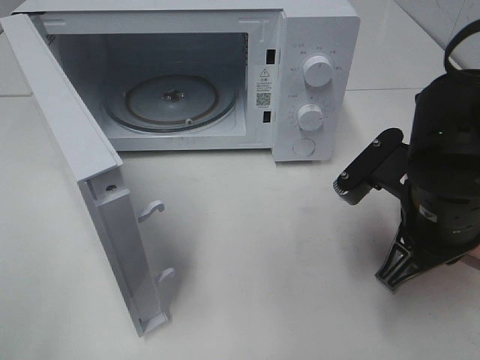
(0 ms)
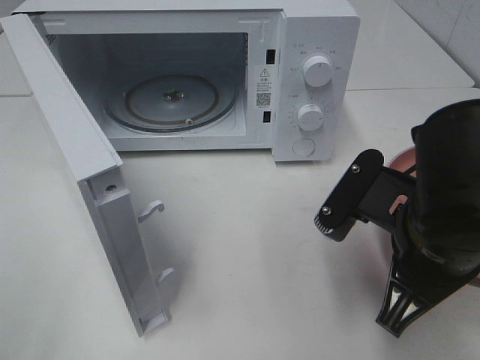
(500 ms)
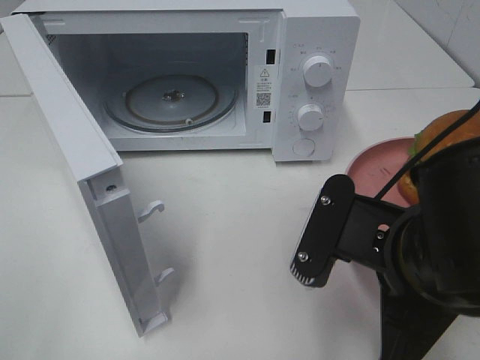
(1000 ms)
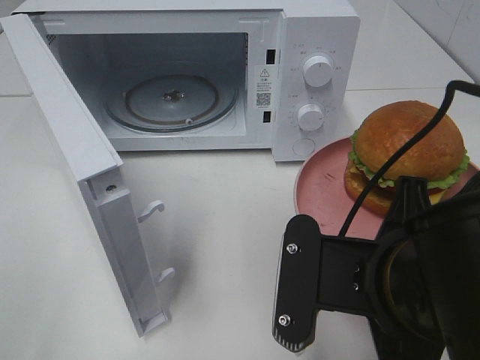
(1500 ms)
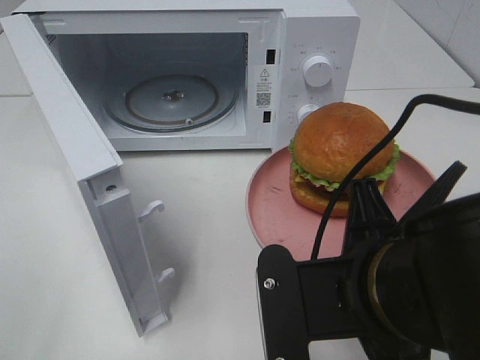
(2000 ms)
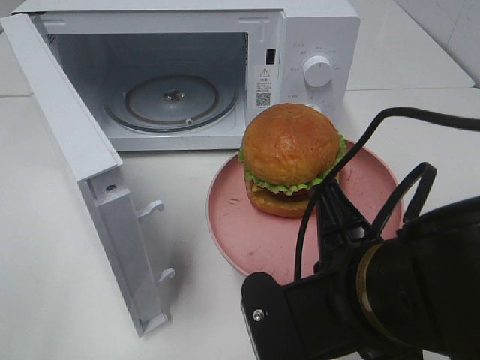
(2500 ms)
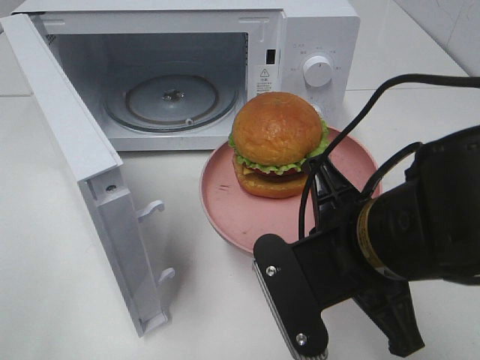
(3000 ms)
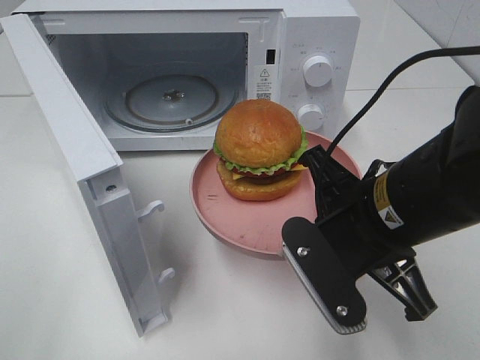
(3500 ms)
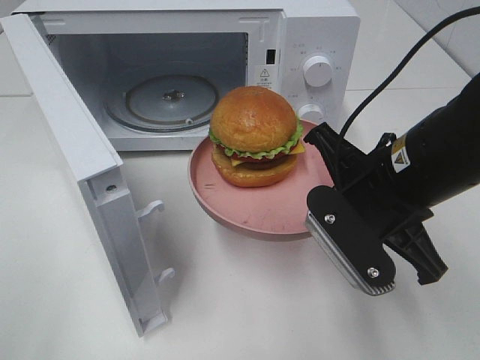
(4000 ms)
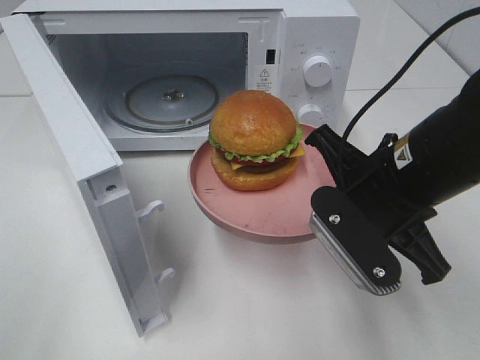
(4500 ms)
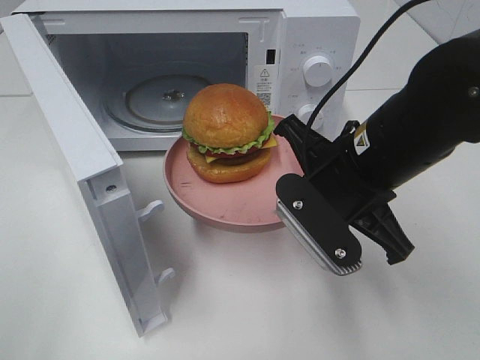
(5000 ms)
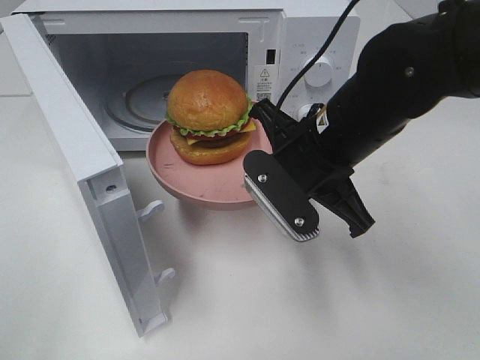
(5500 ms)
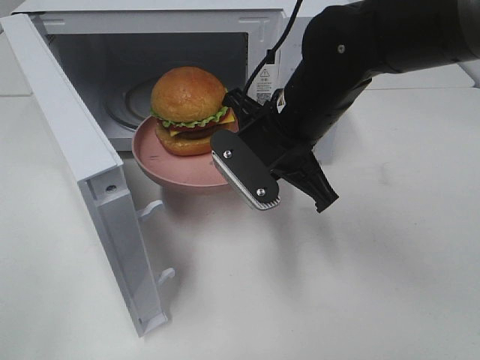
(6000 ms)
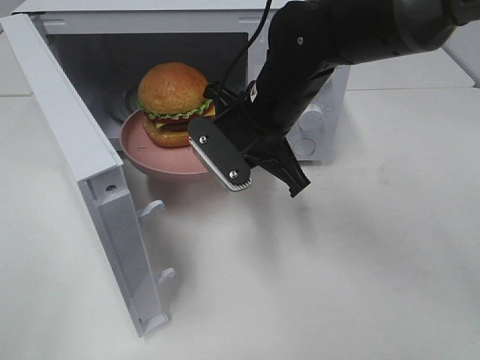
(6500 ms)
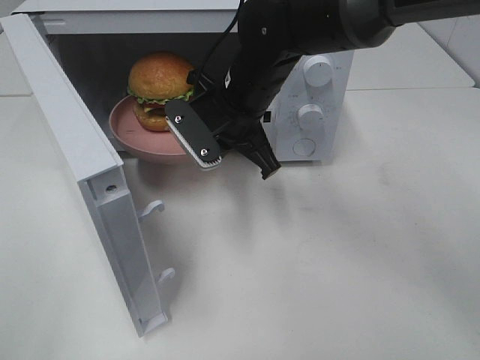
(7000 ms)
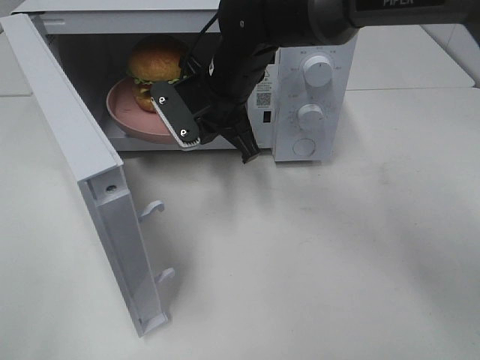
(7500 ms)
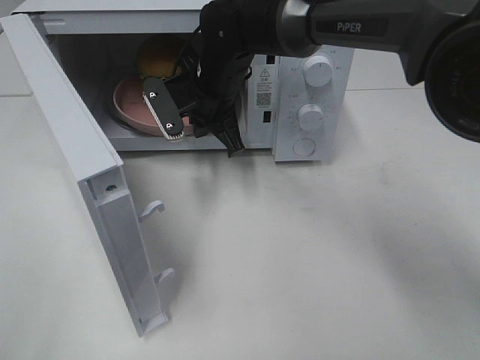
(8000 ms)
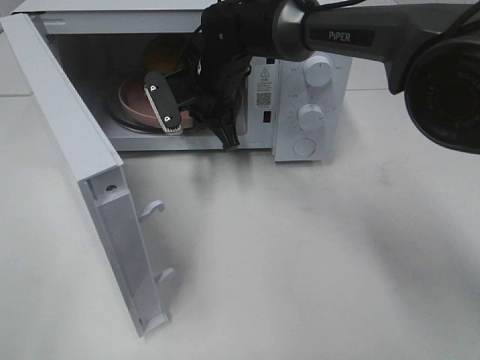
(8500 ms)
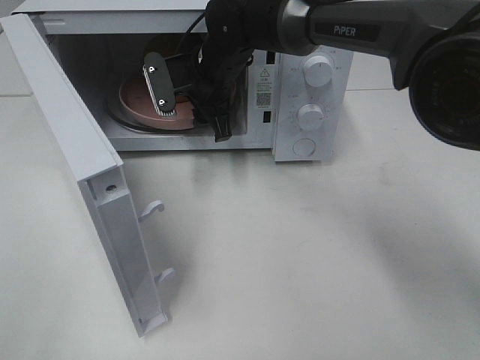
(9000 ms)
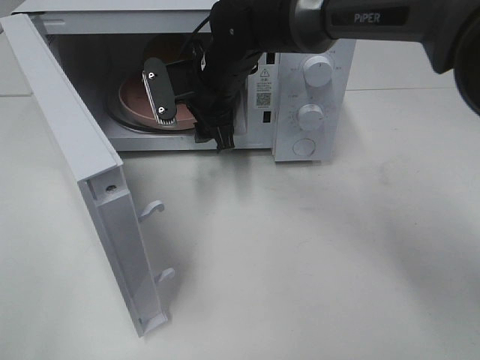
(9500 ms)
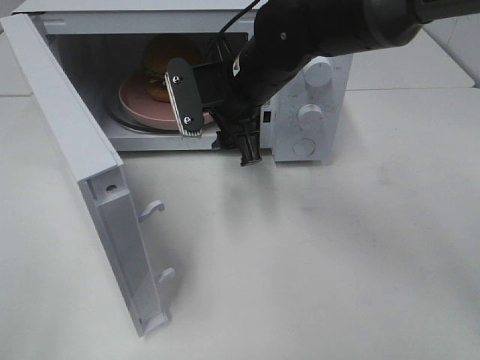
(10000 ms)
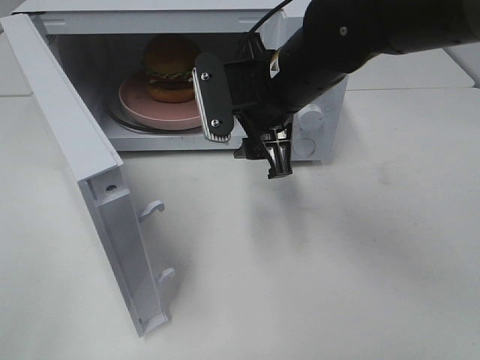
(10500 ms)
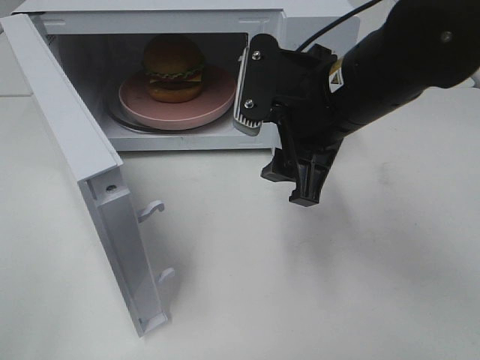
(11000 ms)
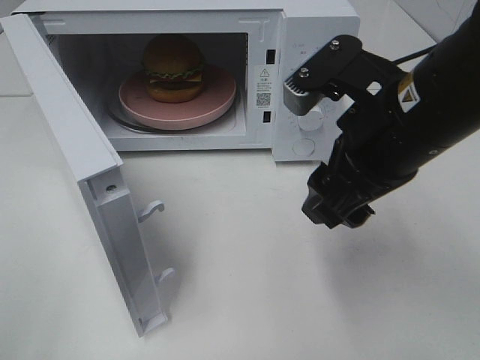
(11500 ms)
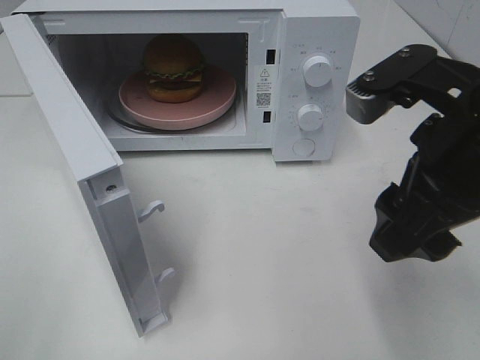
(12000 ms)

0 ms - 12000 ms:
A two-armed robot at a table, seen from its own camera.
Task of the whole recording: Heat the burger.
Step, 0 ms - 9000 ms: Right hand: place the plate in the microwave.
0 ms - 2000 ms: The right gripper heads backward and to the left, covering approximately 10 cm.
2000 ms - 4000 ms: The right gripper moves forward, about 10 cm.
4000 ms - 6000 ms: The right gripper travels forward and to the left by some 10 cm.
6000 ms - 8000 ms: The right gripper travels forward and to the left by about 15 cm.
8000 ms - 10000 ms: The right gripper heads backward, covering approximately 5 cm, and opens up.
10000 ms - 12000 ms: The right gripper travels backward and to the right by roughly 25 cm.

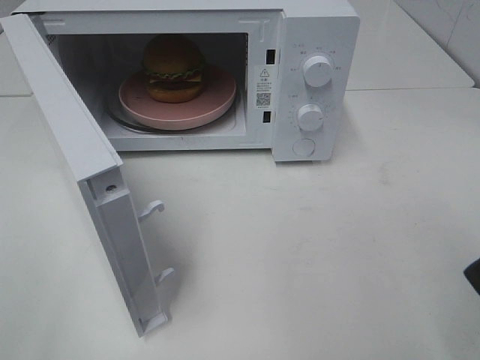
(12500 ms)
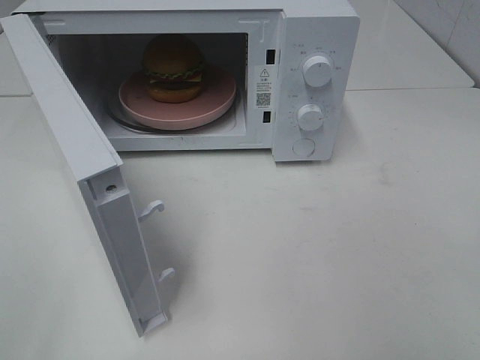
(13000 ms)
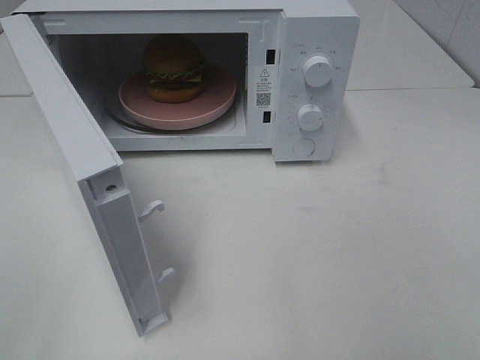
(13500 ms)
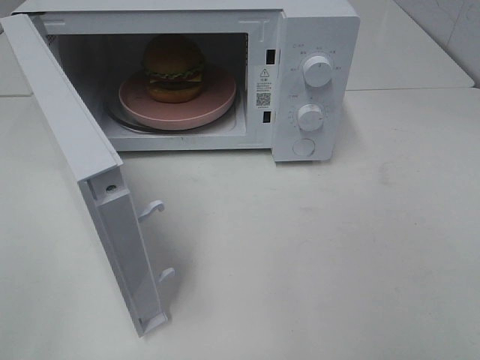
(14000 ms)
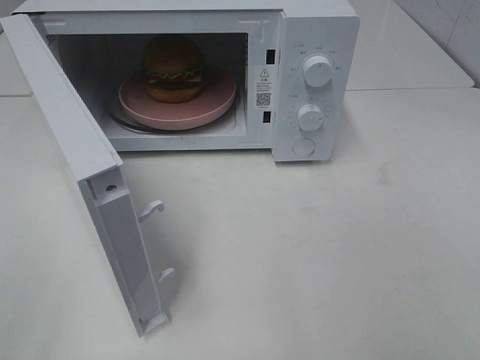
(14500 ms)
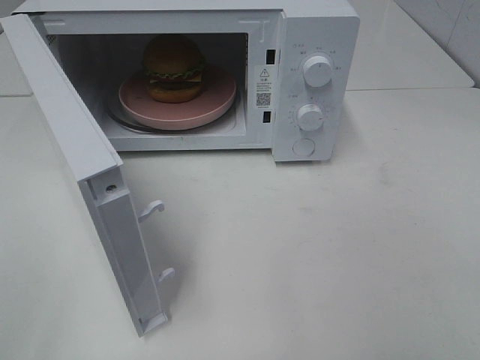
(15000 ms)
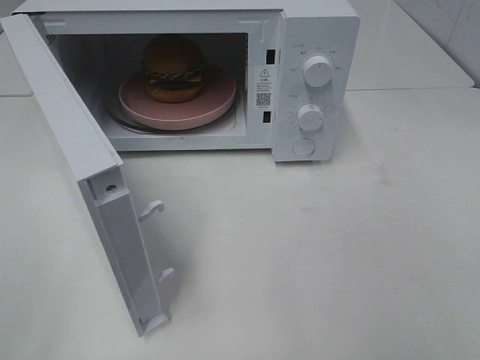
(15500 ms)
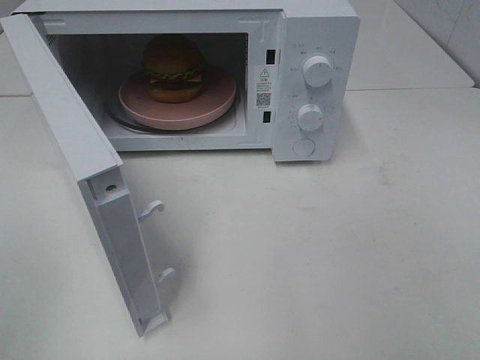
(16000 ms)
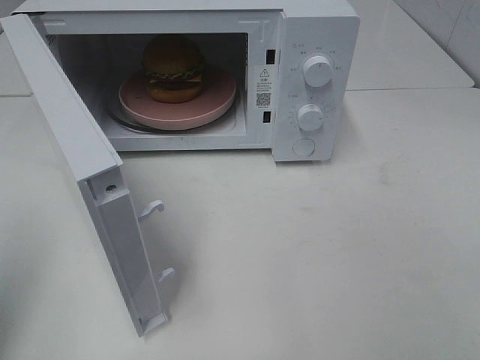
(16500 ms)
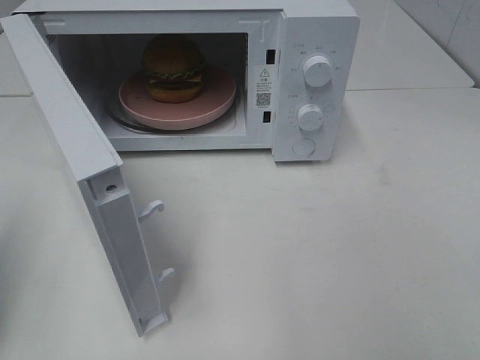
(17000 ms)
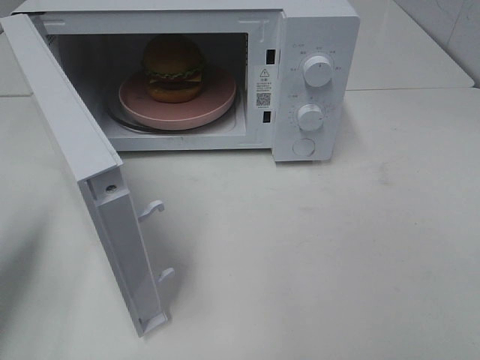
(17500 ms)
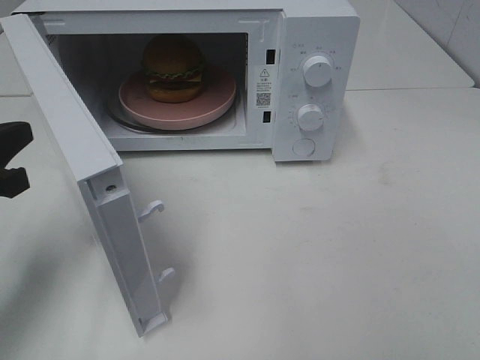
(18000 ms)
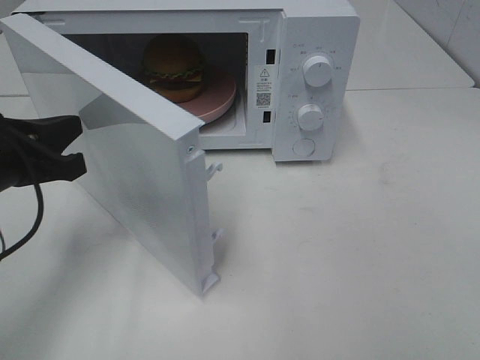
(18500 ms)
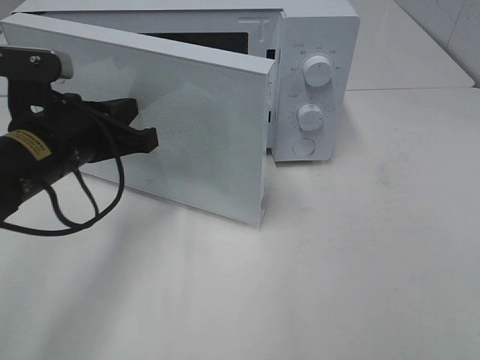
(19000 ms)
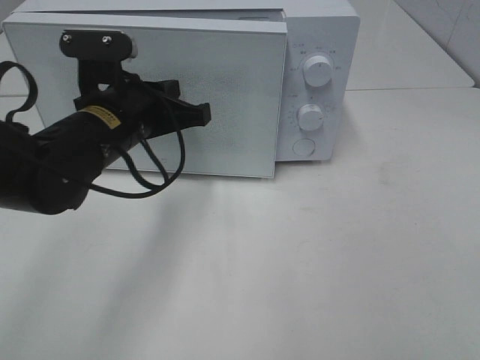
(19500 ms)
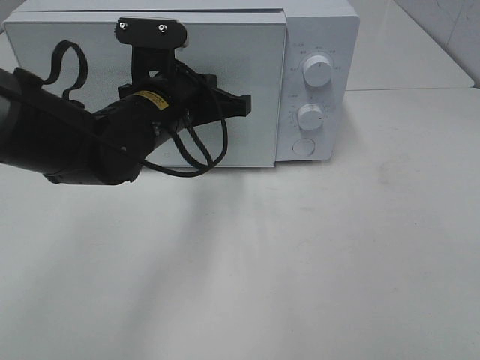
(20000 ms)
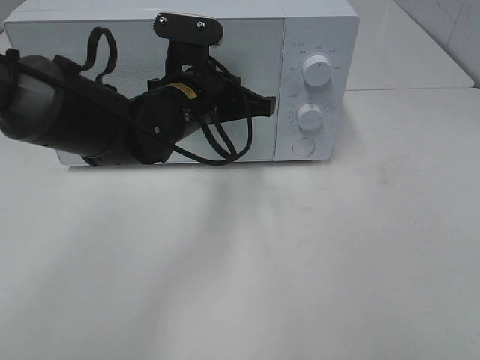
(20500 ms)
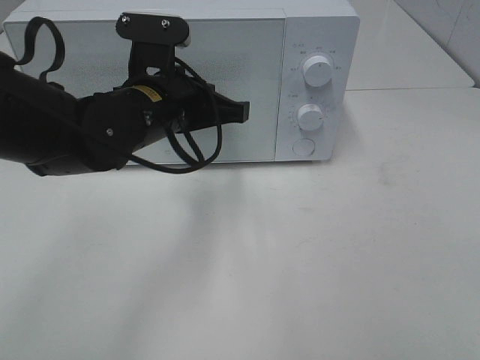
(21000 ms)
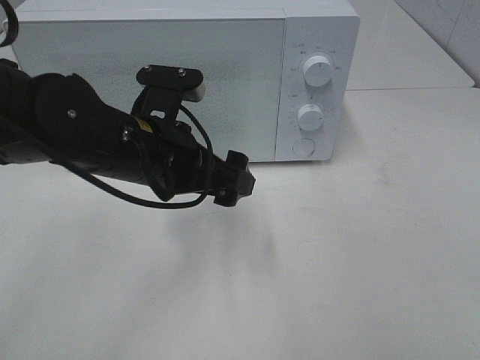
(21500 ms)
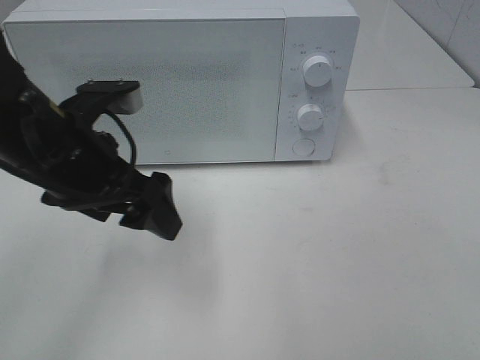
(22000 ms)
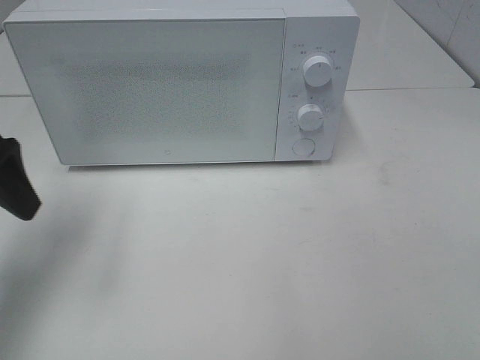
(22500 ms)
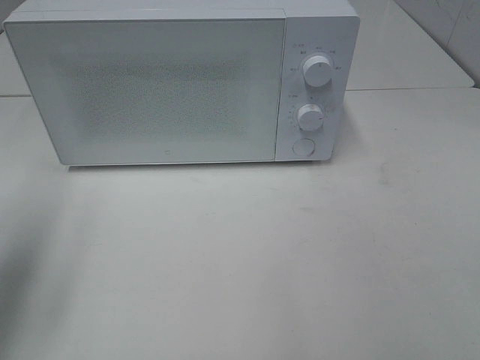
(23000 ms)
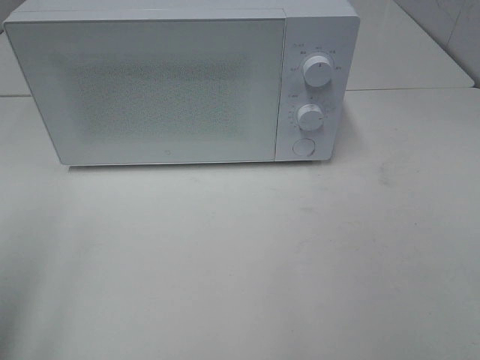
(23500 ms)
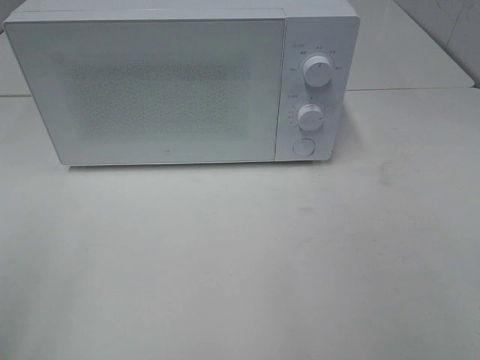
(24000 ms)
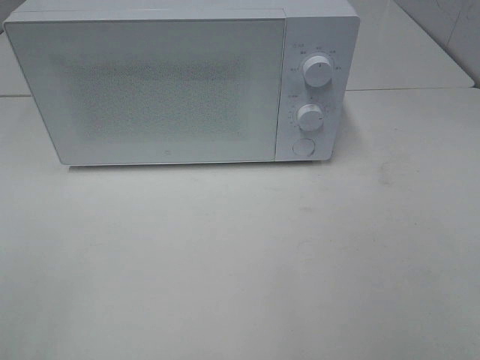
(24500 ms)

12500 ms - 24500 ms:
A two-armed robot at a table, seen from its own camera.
Task of the whole recording: Heat the burger.
Step, 12500 ms - 21000 ms: Left hand: close the microwave door.
14500 ms - 16500 ms: The left gripper shifts about 10 cm forward, and closes up.
16500 ms - 18500 ms: The left gripper is displaced forward, downward and to the right by some 20 cm.
18500 ms - 20500 ms: The left gripper goes approximately 20 cm to the right and forward.
20500 ms - 22500 ms: The left gripper is displaced to the left and backward by about 25 cm, and opens up.
22500 ms - 24500 ms: The left gripper is displaced backward by roughly 25 cm.

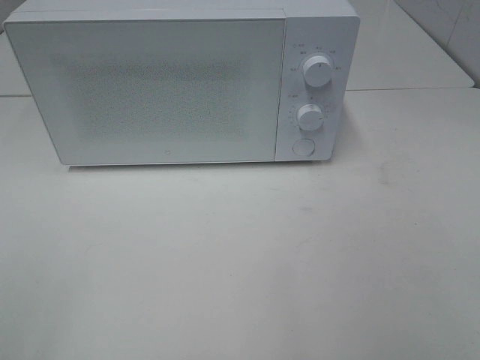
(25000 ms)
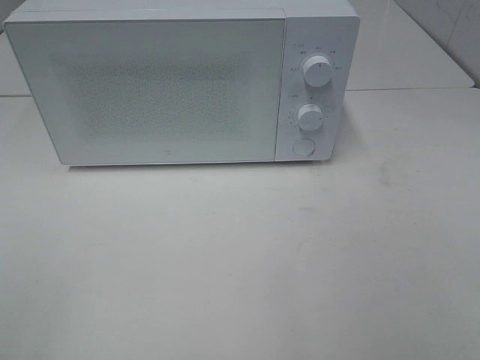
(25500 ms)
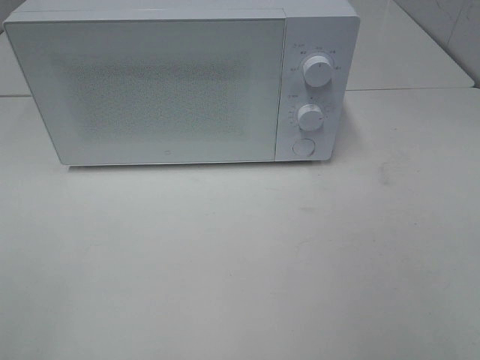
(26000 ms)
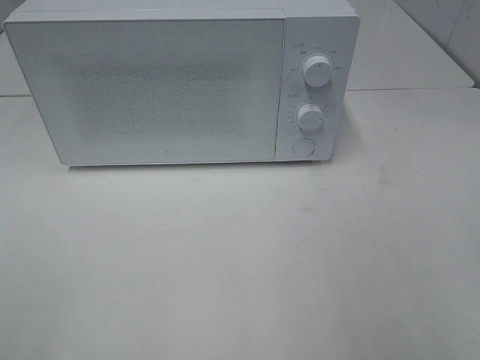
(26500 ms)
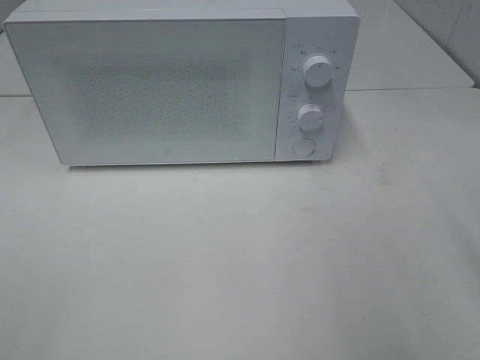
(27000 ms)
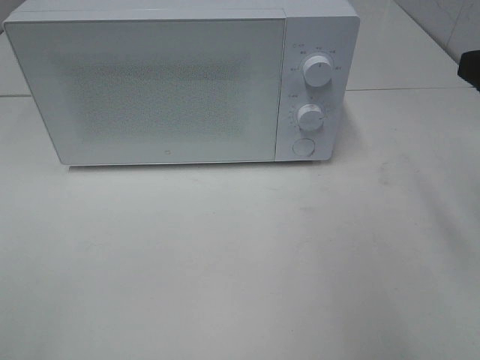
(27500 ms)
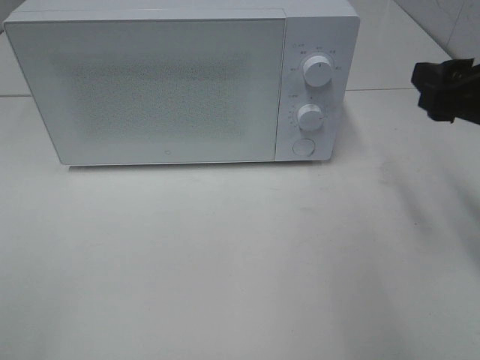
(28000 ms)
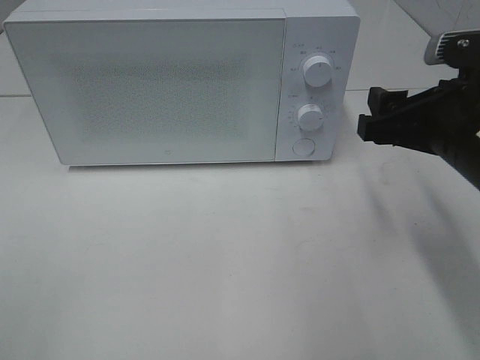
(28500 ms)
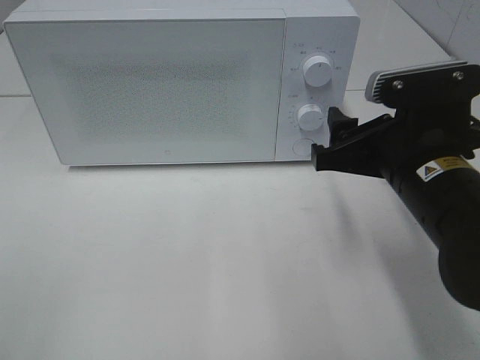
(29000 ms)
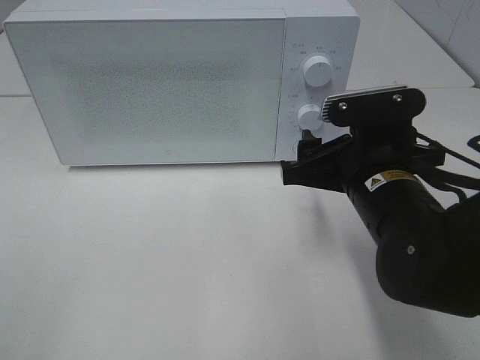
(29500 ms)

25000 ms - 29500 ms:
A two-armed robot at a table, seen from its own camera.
Task of the whole recording: Heat the burger.
27000 ms - 29500 ms: The right gripper travels to the left, downward and forward by about 20 cm.
